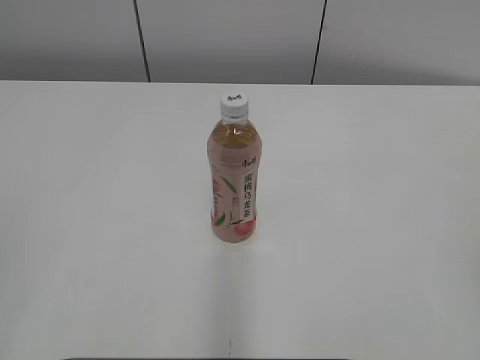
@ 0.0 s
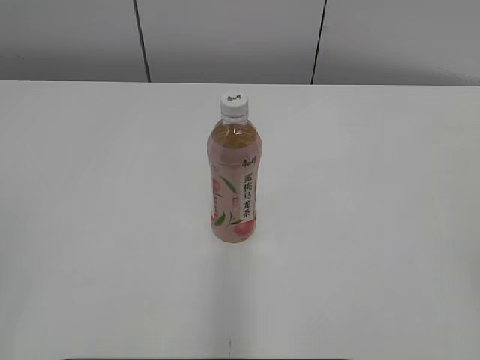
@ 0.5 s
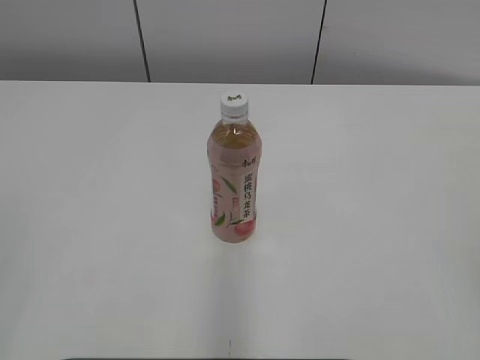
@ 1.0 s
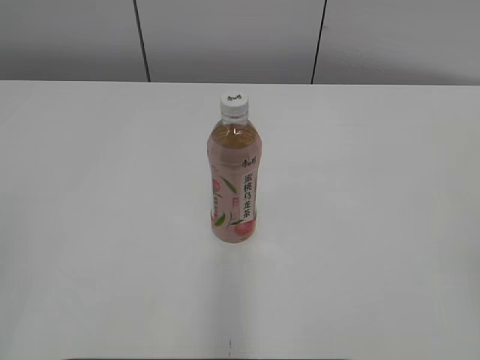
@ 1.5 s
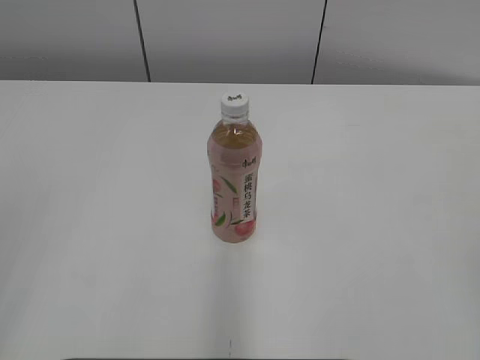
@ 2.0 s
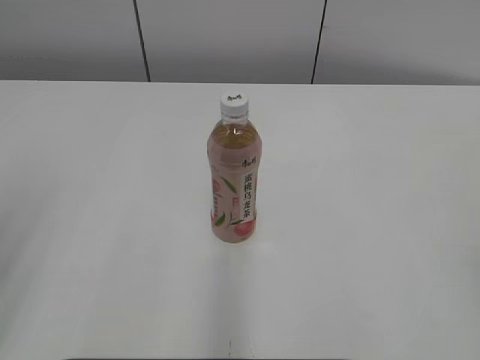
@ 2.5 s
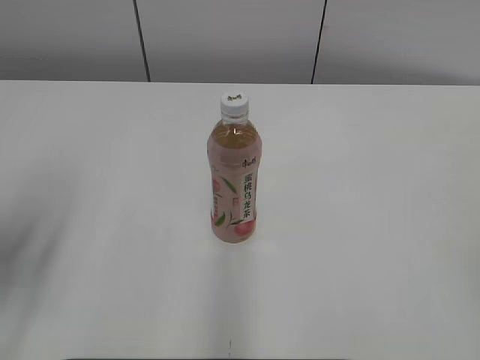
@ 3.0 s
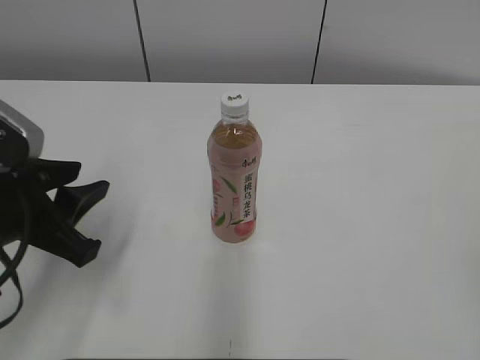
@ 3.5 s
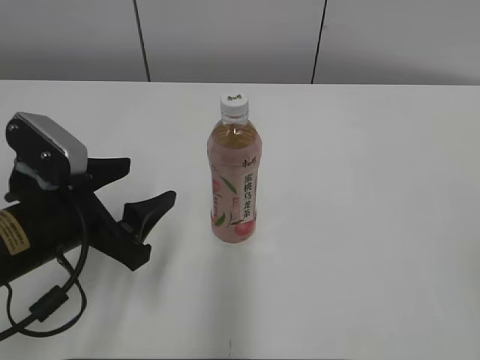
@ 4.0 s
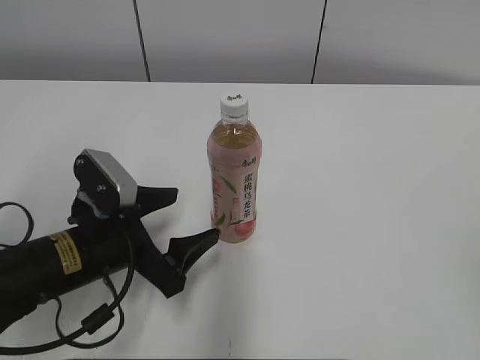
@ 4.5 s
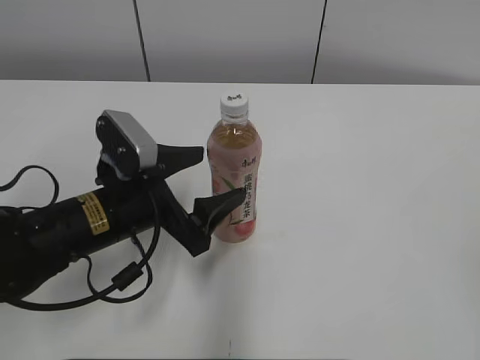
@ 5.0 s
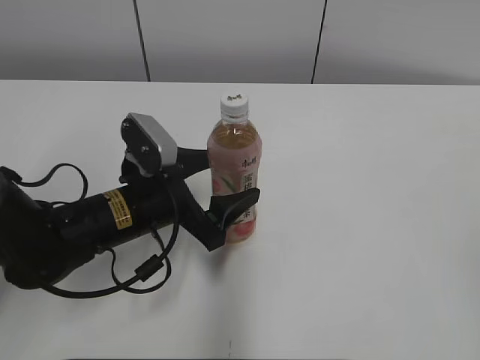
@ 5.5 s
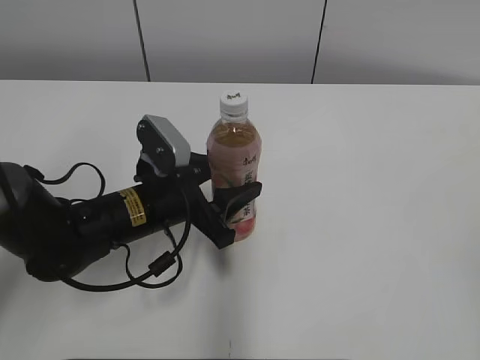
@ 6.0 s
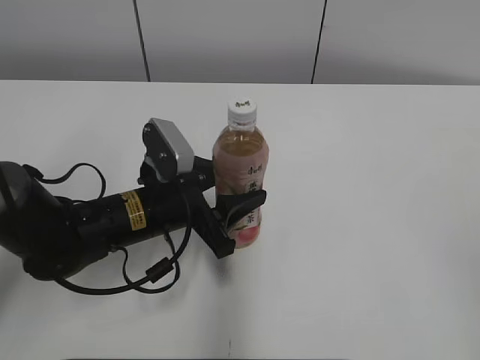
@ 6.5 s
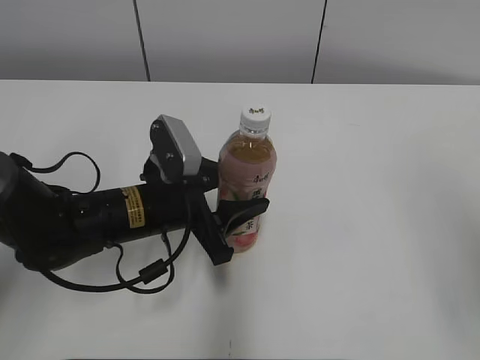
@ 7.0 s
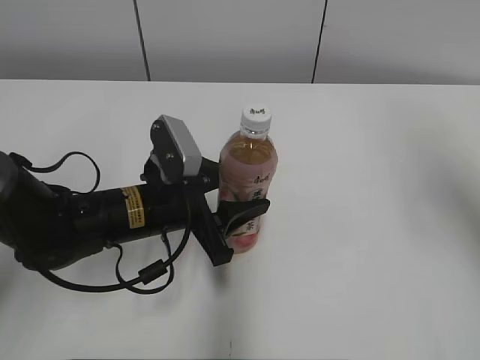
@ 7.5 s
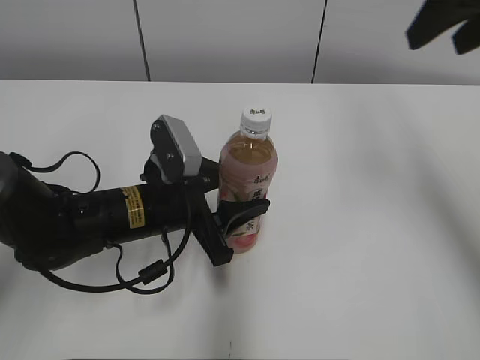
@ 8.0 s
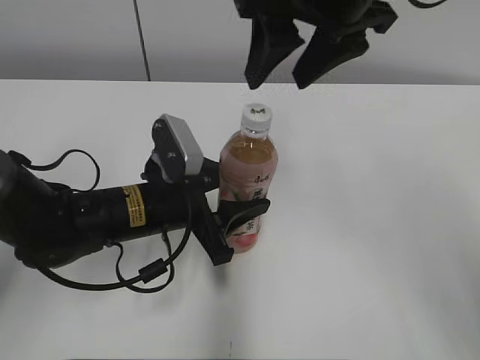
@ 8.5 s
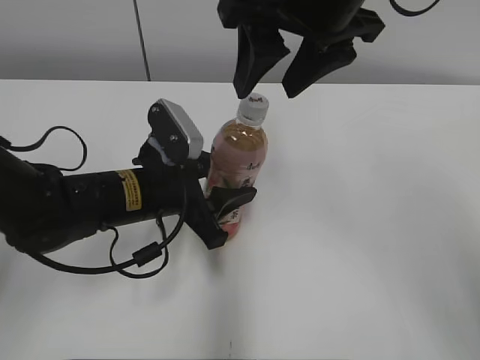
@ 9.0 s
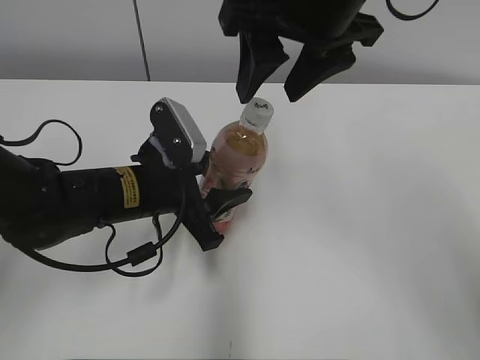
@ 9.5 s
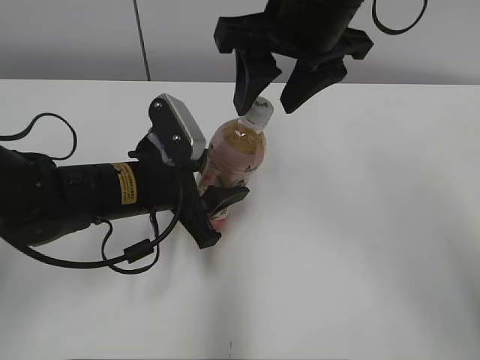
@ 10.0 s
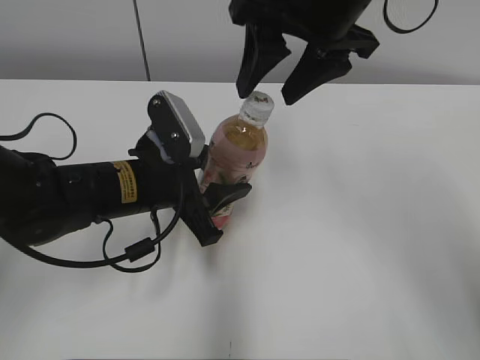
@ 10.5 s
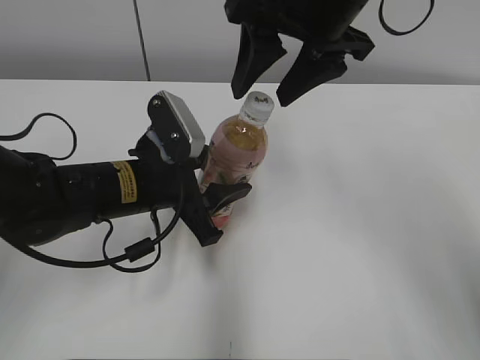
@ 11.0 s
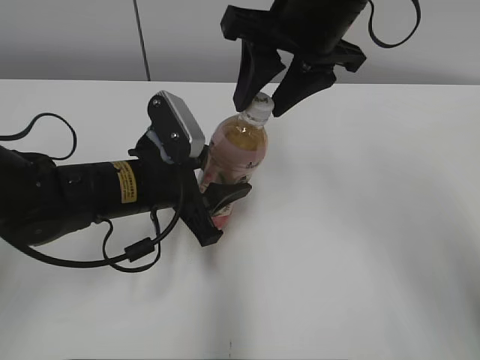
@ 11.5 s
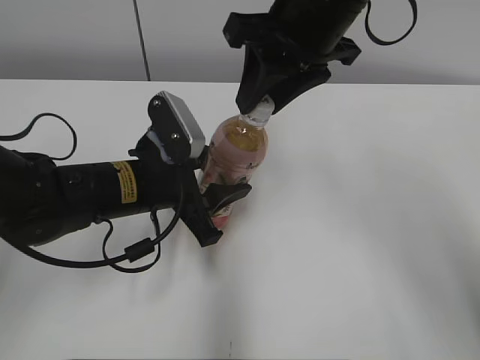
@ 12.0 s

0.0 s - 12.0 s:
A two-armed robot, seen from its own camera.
Step, 0.0 s - 6.0 s: Grab the Peach Oolong Tea with the left hand.
2.0 s - 4.0 s: The left gripper moves forward, downward and to the right, approximately 30 cm, and opens up.
4.0 s - 6.0 s: The left gripper heads forward, to the right and downward, covering roughly 15 cm.
6.0 s - 8.0 s: The right gripper travels forward by roughly 30 cm, and closes up.
8.0 s - 10.0 s: The right gripper shifts roughly 15 cm to the left.
10.0 s - 12.0 s: The right gripper closes.

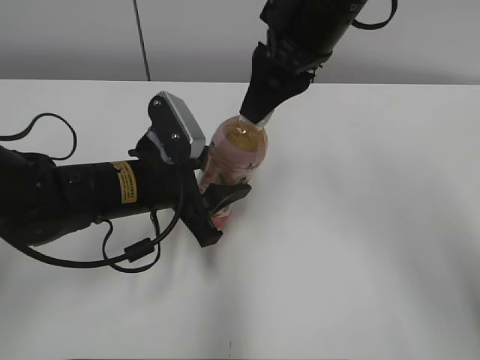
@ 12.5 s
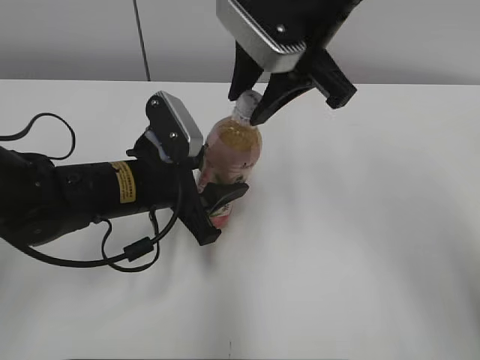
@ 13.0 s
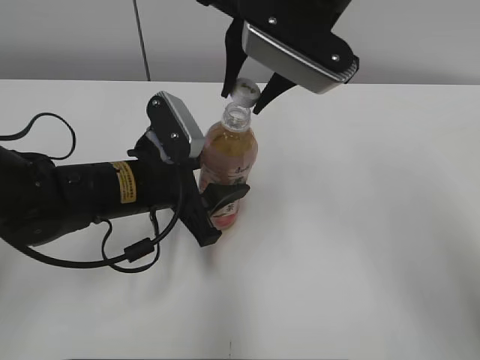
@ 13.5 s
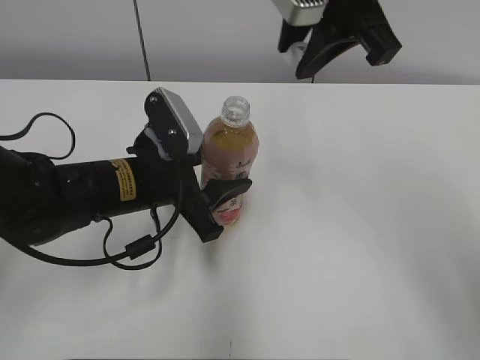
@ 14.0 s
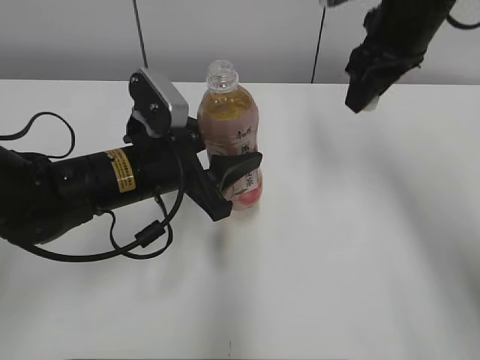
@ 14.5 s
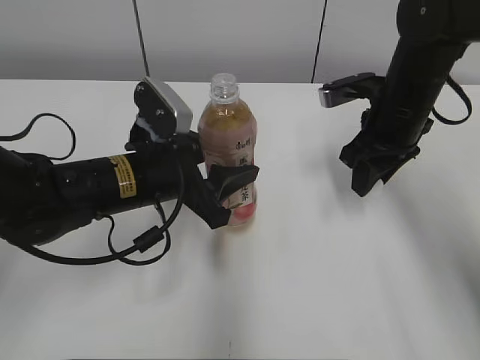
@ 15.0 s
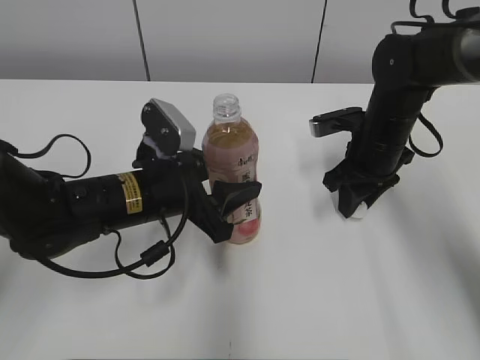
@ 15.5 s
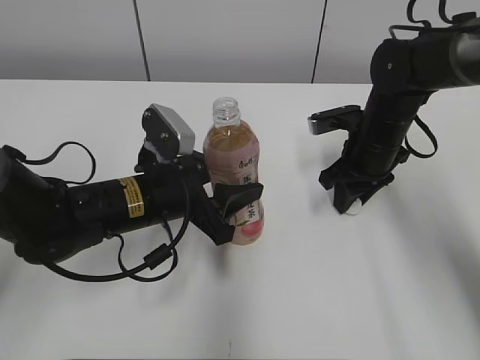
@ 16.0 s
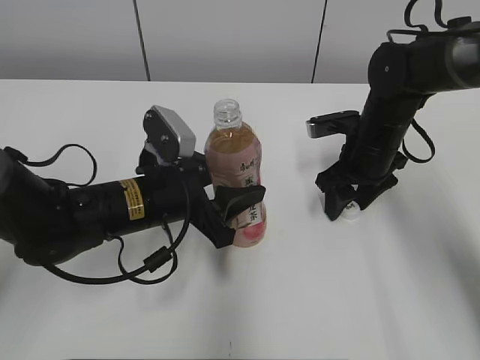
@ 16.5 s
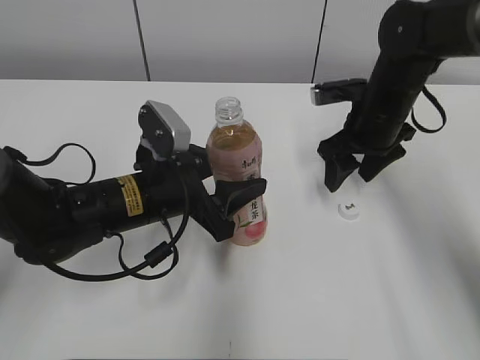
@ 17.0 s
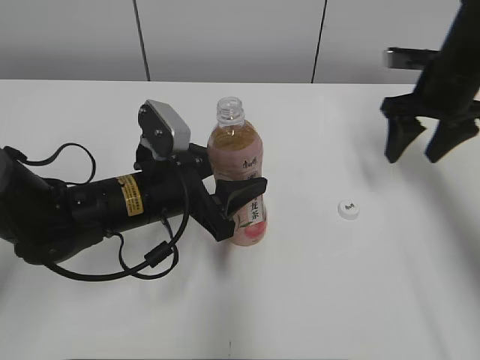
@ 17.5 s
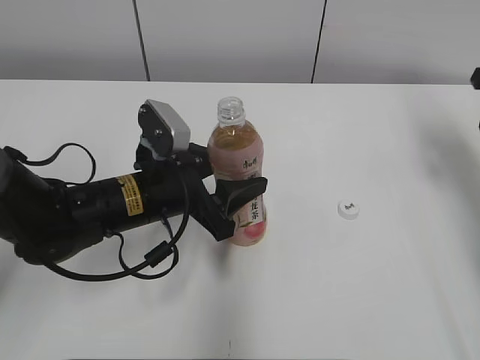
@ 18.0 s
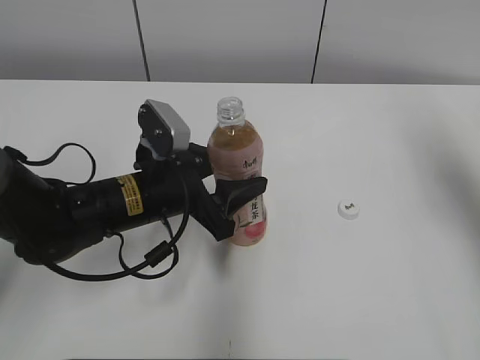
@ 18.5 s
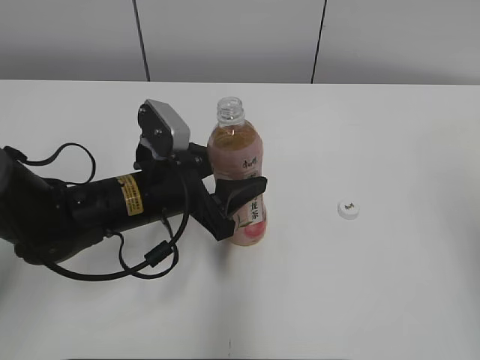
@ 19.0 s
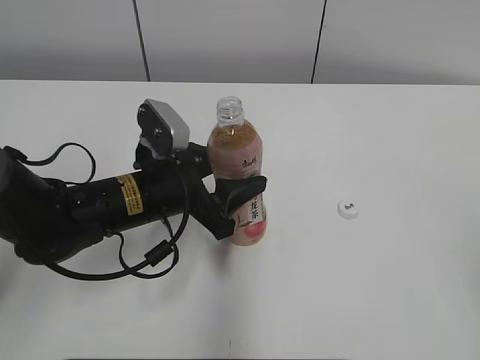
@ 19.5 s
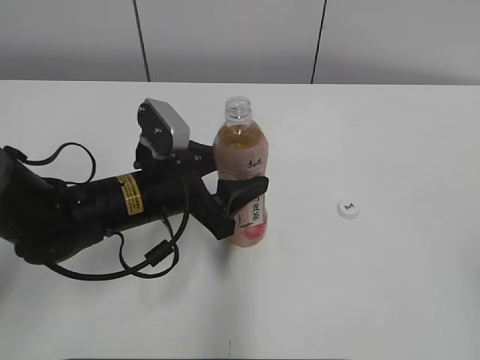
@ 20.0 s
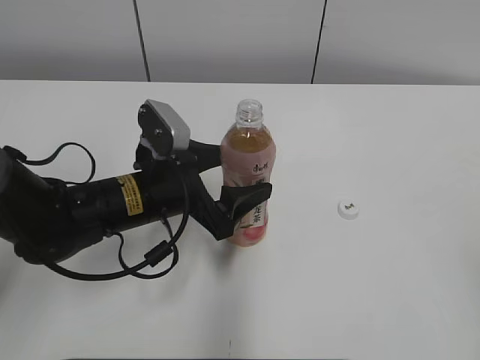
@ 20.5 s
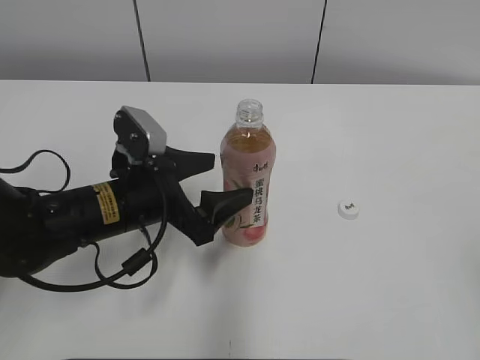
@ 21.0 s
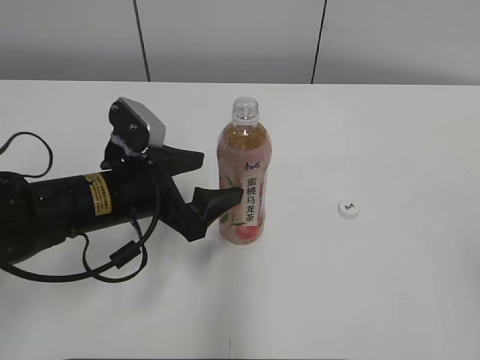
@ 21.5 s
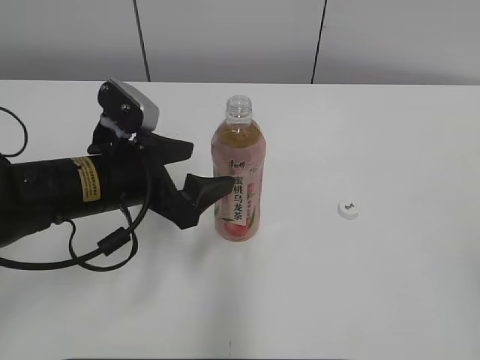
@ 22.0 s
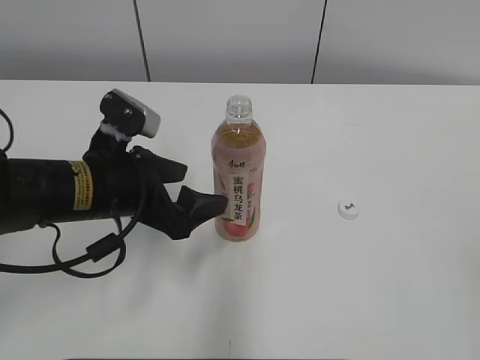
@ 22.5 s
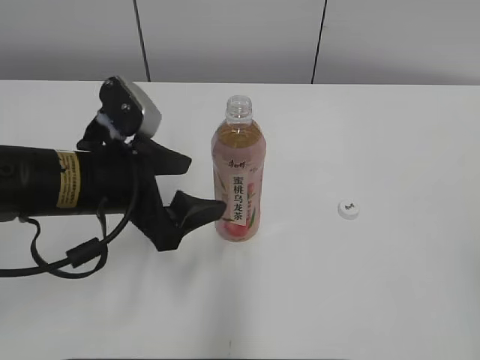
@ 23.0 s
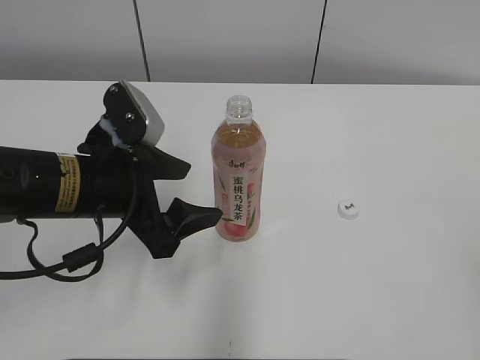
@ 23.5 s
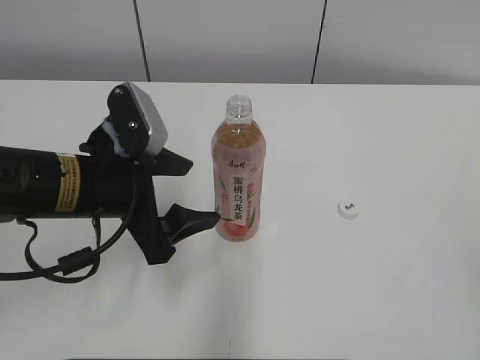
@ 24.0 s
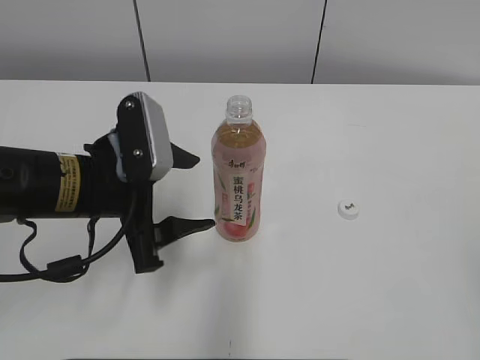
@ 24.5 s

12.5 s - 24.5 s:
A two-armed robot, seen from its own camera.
Step, 14.0 s - 17.0 s: Place the bottle cap on the right.
12.5 s - 14.5 s: The right gripper is displaced to the right and forward by about 10 cm.
14.5 s - 16.5 s: The right gripper moves downward, about 20 cm, and opens its fingers.
16.5 s - 18.5 s: The right gripper heads upward and to the right, covering some 25 cm.
18.5 s - 20.5 s: The left gripper opens up, while the right gripper travels backward by about 35 cm.
20.5 s - 22.5 s: The left gripper moves approximately 5 cm.

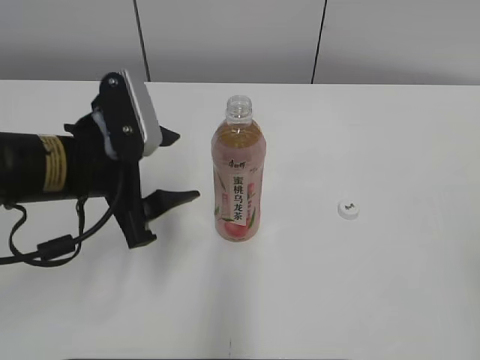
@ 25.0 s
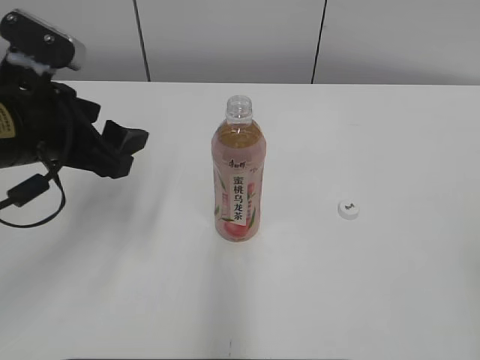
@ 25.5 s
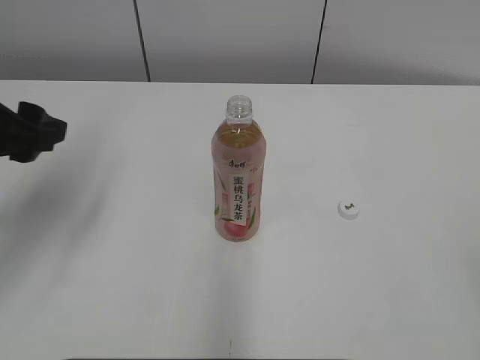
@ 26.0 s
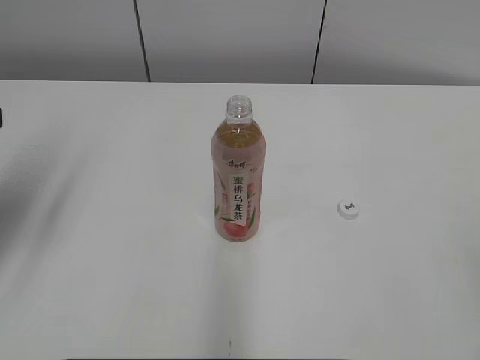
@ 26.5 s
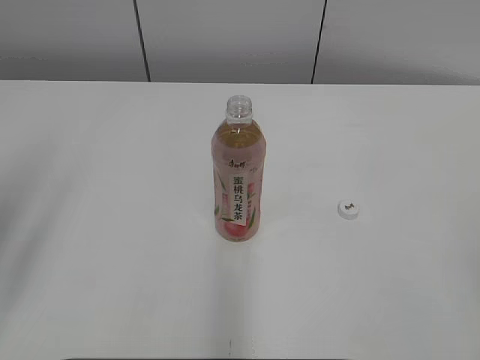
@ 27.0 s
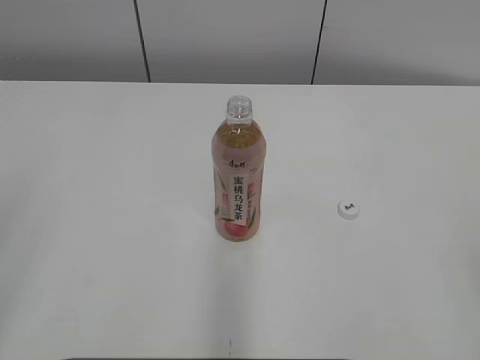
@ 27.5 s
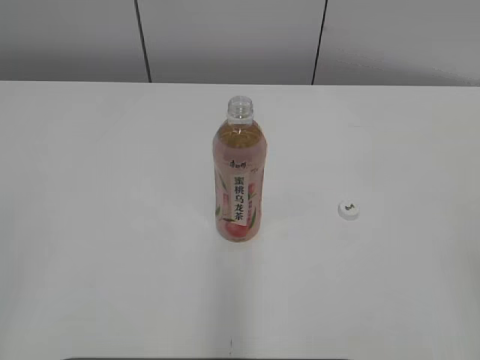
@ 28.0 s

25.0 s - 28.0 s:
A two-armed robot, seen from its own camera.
25.0 s - 26.5 s: The left gripper travels to the left and upward by about 15 cm.
26.5 s - 28.0 s: The left gripper goes roughly 25 cm backward.
